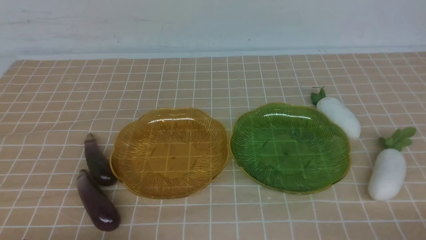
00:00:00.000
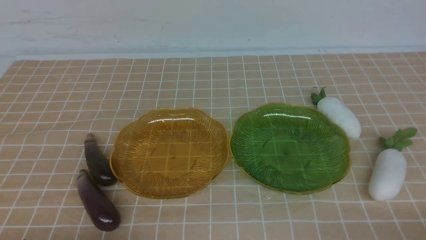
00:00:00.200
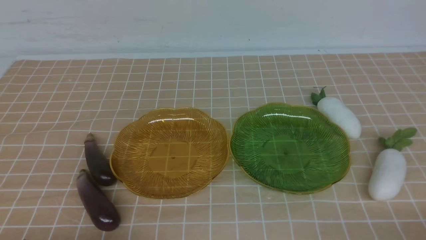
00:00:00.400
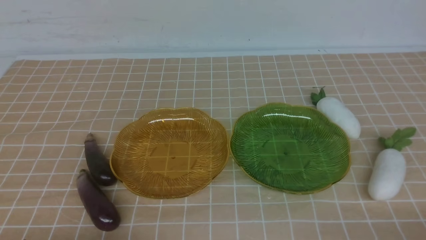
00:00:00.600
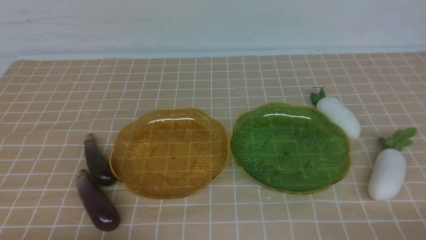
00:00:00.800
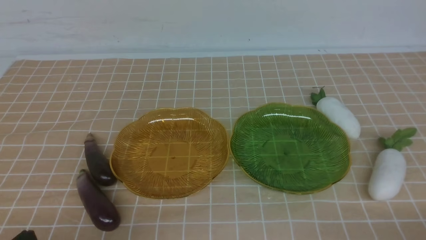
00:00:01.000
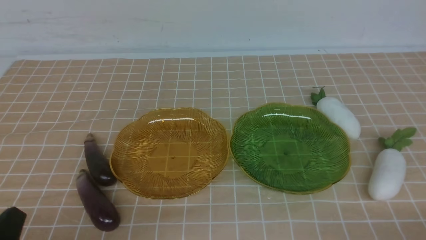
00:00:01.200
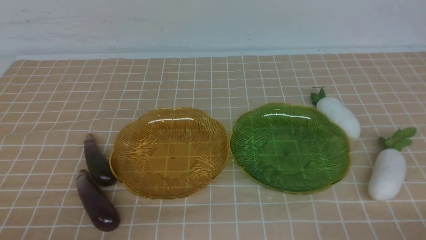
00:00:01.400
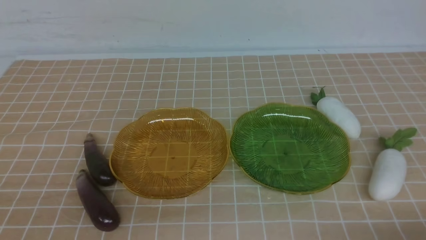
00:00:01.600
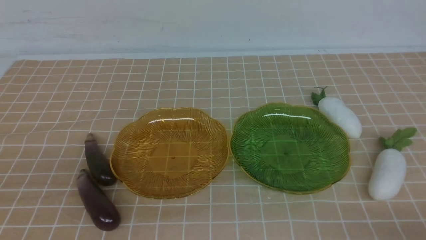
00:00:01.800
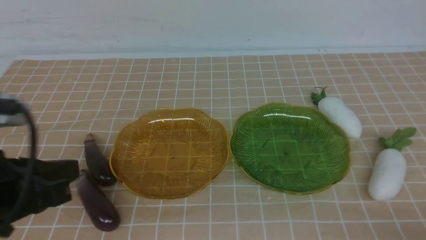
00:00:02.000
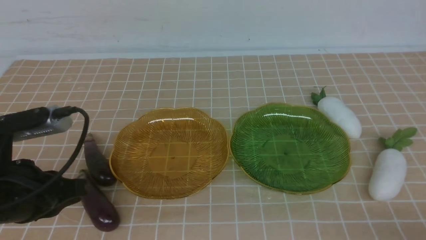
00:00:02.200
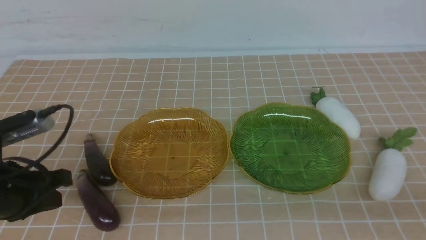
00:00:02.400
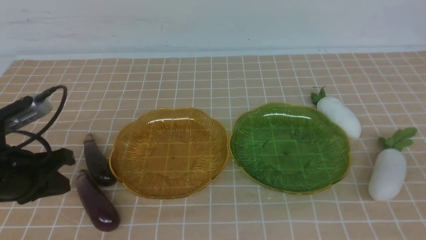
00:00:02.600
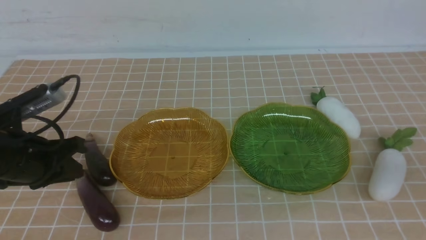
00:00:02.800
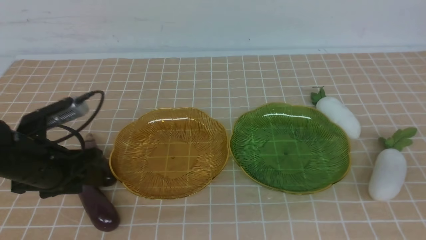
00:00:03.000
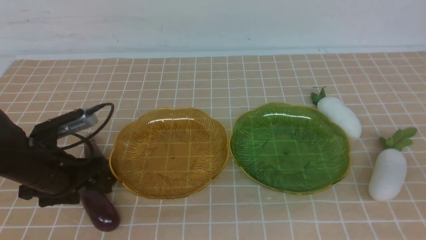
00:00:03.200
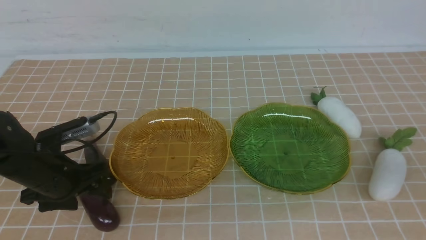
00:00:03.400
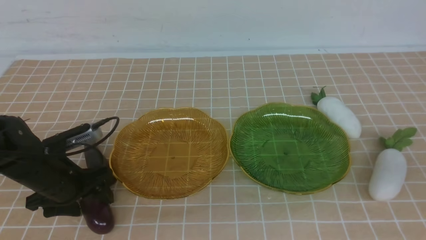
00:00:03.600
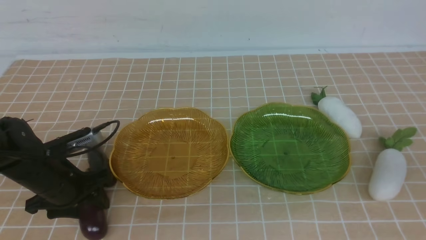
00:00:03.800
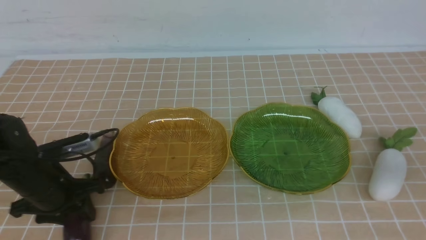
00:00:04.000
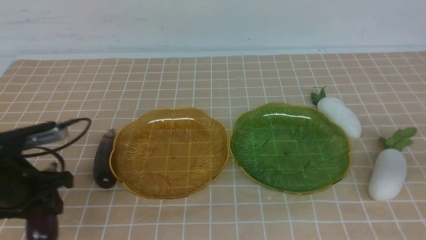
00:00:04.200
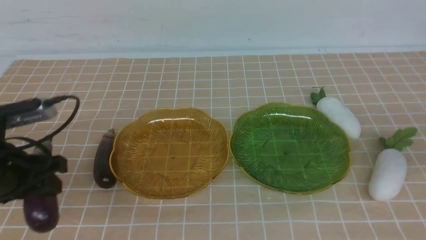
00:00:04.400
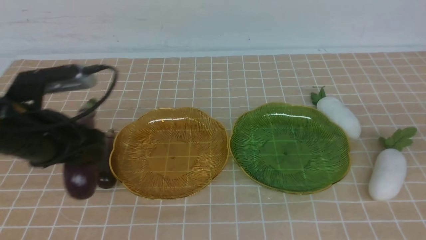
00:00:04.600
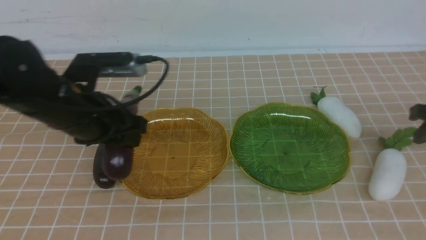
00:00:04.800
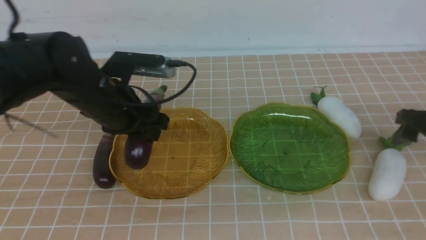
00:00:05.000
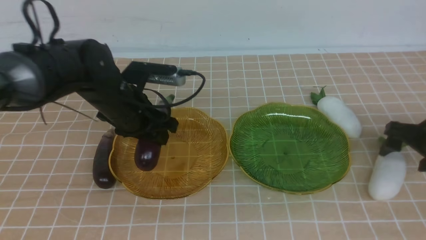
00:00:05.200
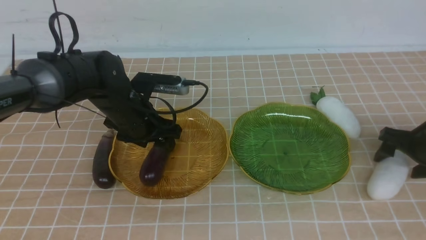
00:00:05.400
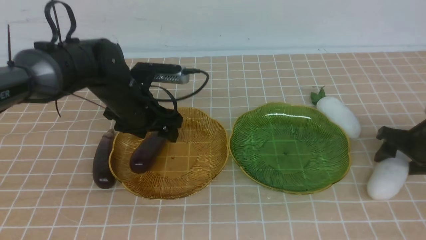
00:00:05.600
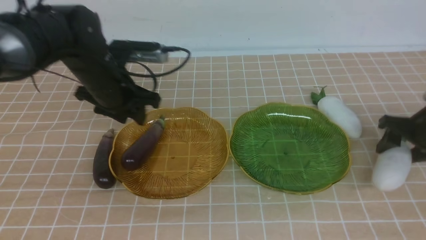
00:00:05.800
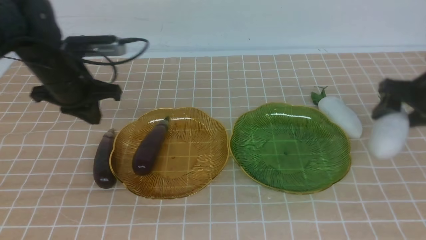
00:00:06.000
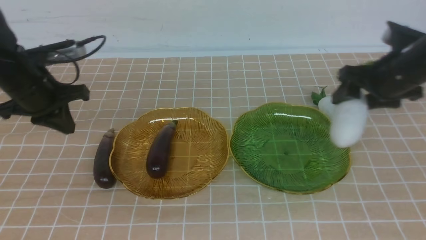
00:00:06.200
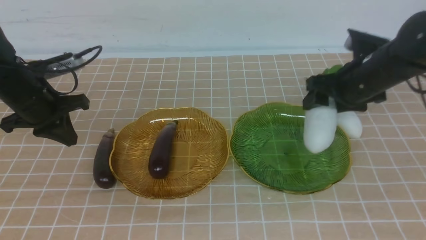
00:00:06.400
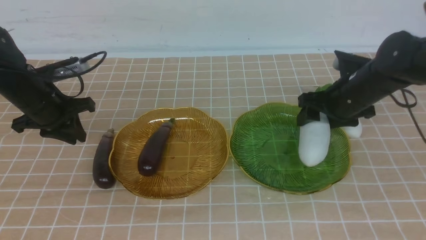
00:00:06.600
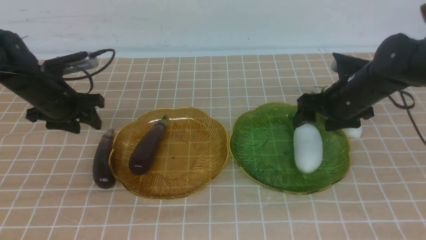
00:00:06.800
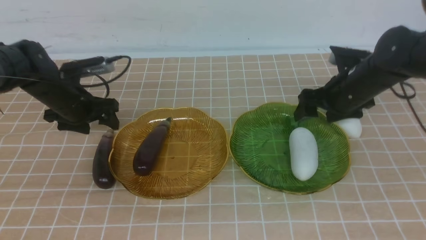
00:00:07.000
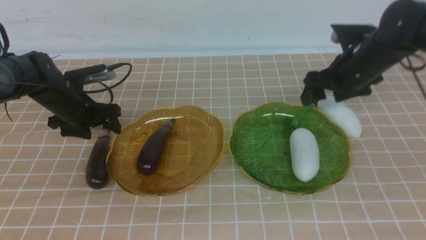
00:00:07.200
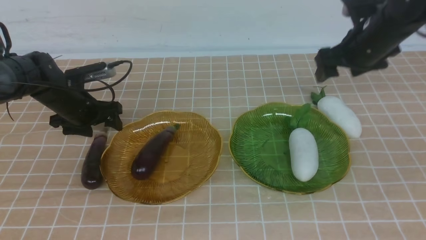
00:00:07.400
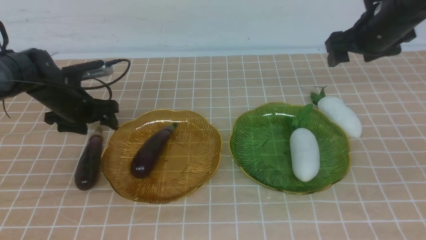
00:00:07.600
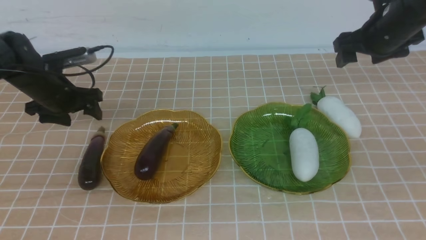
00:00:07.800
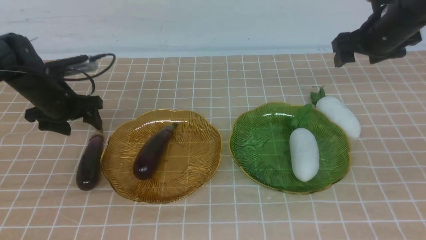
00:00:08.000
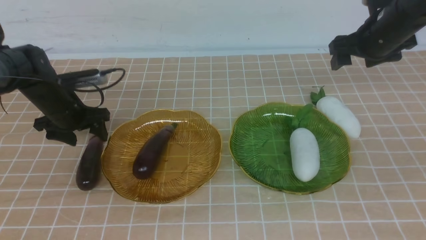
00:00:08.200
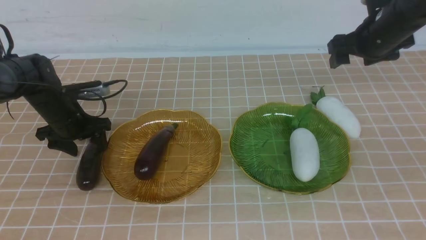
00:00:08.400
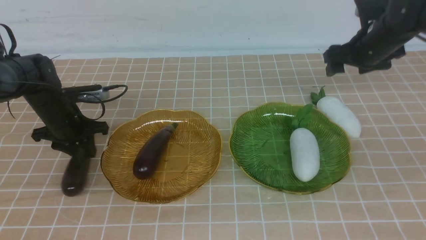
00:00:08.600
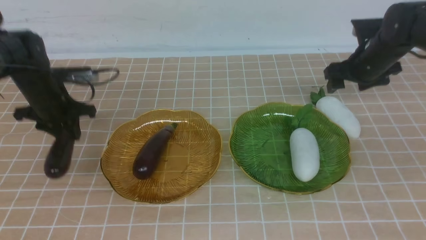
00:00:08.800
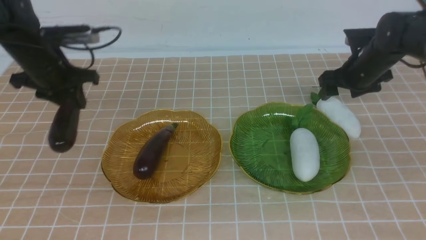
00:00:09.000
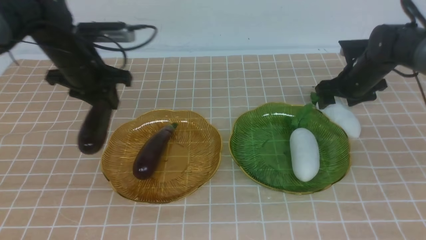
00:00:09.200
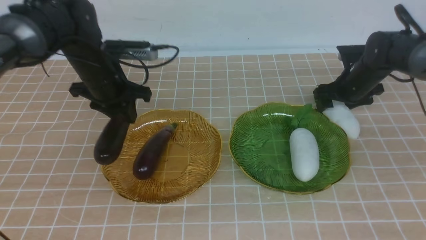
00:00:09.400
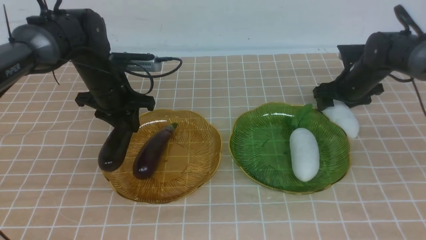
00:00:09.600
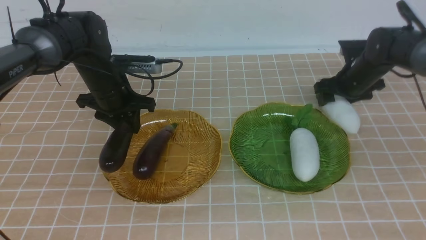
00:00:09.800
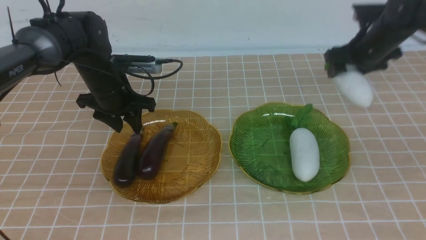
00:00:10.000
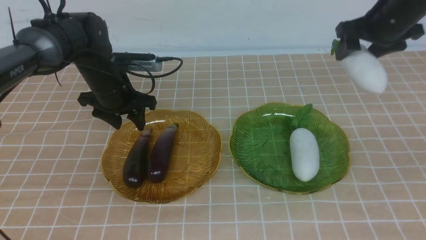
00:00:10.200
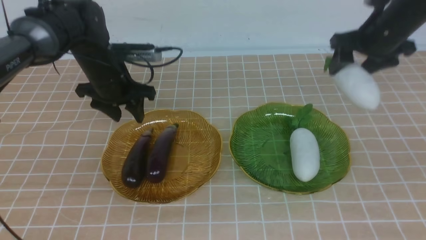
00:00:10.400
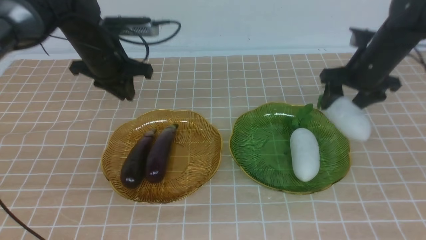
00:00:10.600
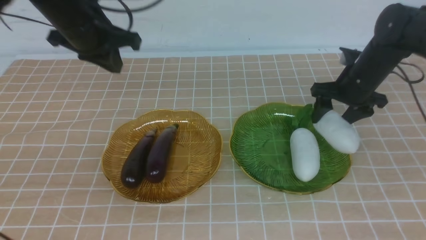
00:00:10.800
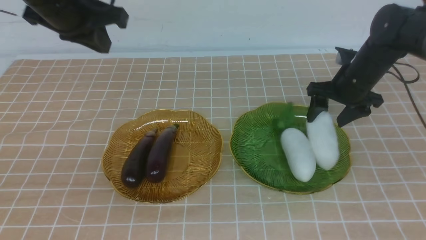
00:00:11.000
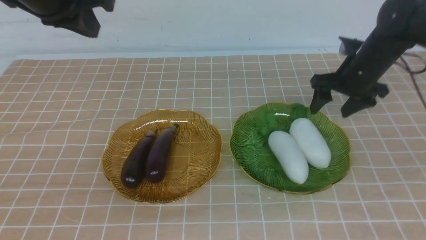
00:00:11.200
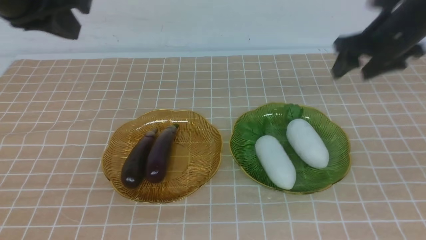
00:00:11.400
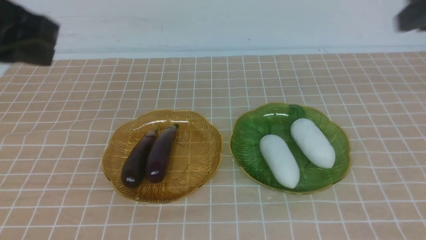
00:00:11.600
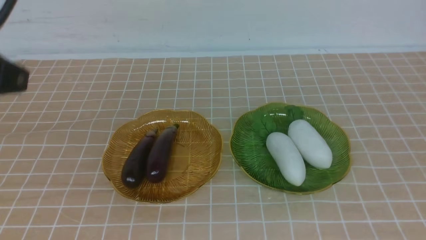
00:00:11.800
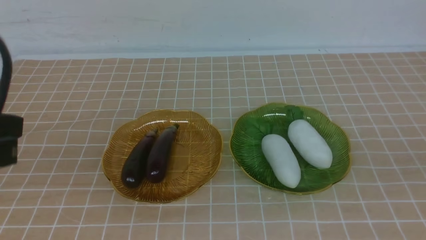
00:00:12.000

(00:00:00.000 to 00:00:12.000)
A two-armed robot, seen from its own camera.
Step, 00:00:00.000 - 00:00:05.600: use the left arm to grab an eggplant and put it into the left plate.
Step, 00:00:06.000 - 00:00:07.000: use the right arm to grab a radish and put it into the right plate.
Step, 00:00:07.200 - 00:00:10.000: use the left arm to grab an eggplant and put it into the left plate.
Step, 00:00:10.200 - 00:00:11.200: use the right arm to grab a radish and put it into the right plate.
00:00:01.600 - 00:00:03.000: The left gripper shifts roughly 25 cm forward and downward, and opens up. The right gripper is displaced upward by some 15 cm.
00:00:03.000 - 00:00:04.400: The left gripper heads to the right and upward, covering approximately 15 cm, and closes.
00:00:04.400 - 00:00:06.000: The right gripper shifts about 15 cm to the left and forward; the left gripper moves to the left, forward and downward, about 15 cm, and closes, then opens again.
00:00:06.000 - 00:00:07.600: The right gripper heads upward, covering about 10 cm.
00:00:07.600 - 00:00:09.000: The left gripper heads to the right and upward, covering roughly 10 cm, and closes up, while the right gripper is displaced downward by approximately 10 cm.
00:00:09.000 - 00:00:10.400: The right gripper goes roughly 5 cm upward; the left gripper is displaced upward by some 10 cm.
00:00:10.400 - 00:00:12.000: The left gripper goes roughly 30 cm backward. Meanwhile the right gripper travels backward by approximately 40 cm, and closes.

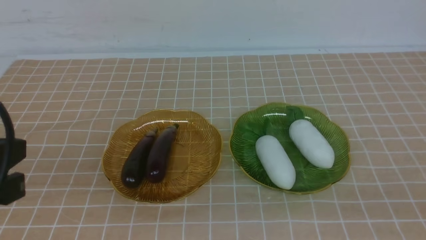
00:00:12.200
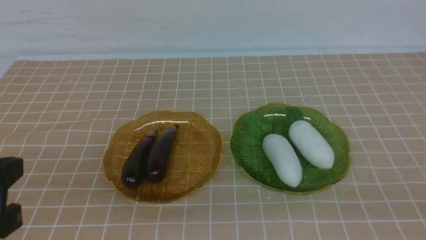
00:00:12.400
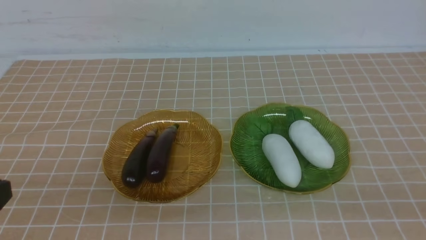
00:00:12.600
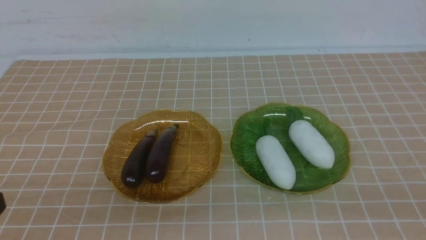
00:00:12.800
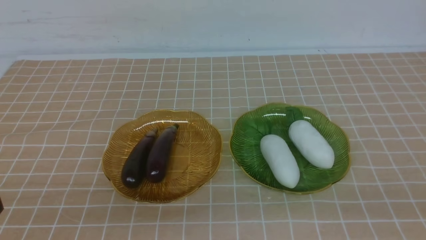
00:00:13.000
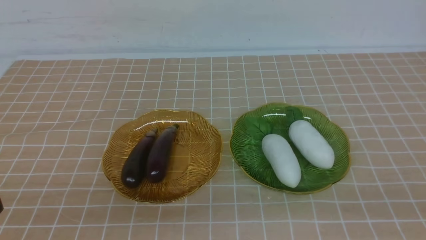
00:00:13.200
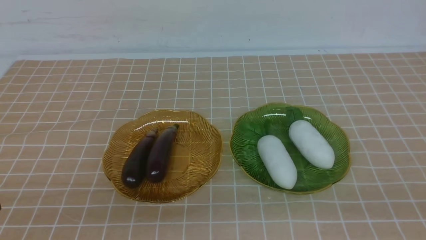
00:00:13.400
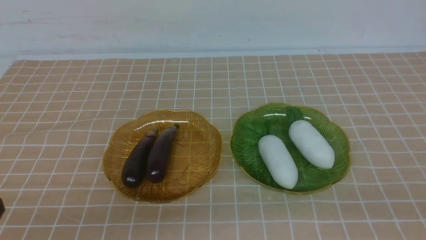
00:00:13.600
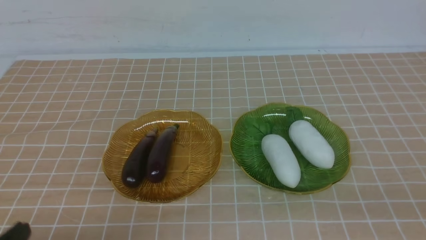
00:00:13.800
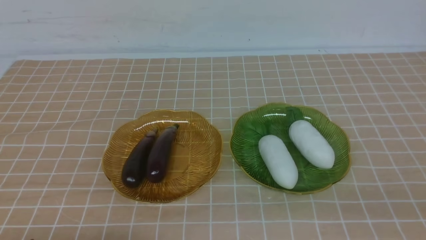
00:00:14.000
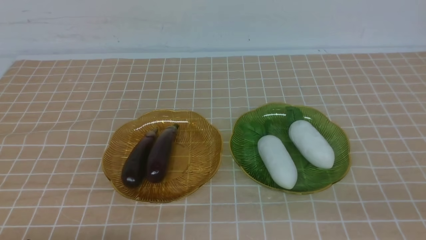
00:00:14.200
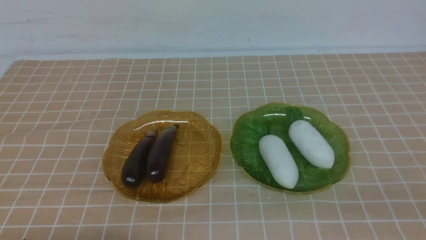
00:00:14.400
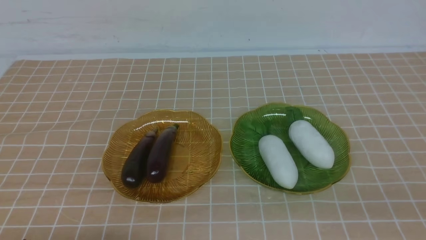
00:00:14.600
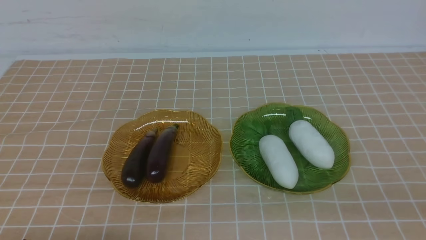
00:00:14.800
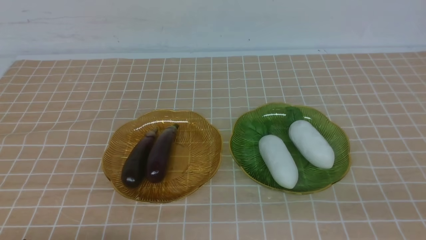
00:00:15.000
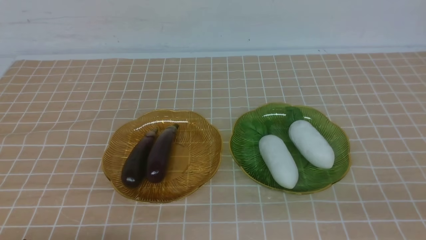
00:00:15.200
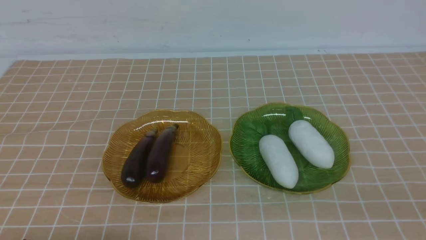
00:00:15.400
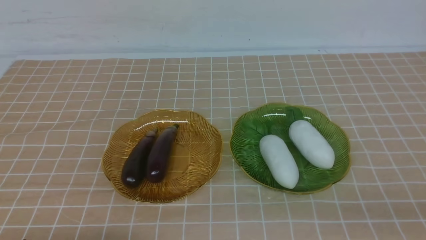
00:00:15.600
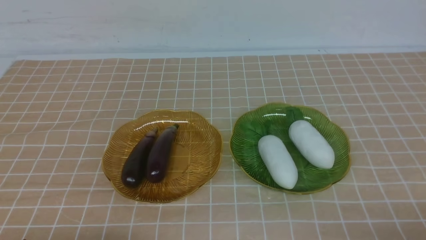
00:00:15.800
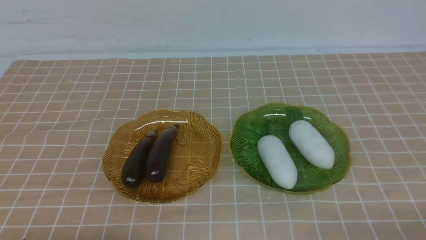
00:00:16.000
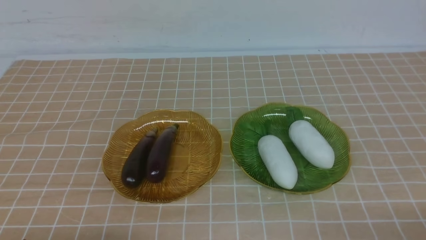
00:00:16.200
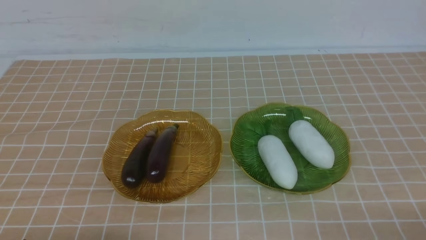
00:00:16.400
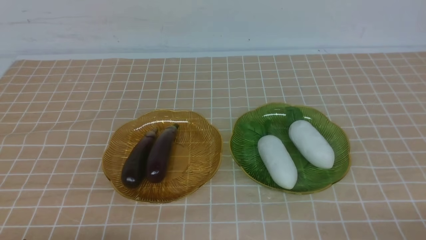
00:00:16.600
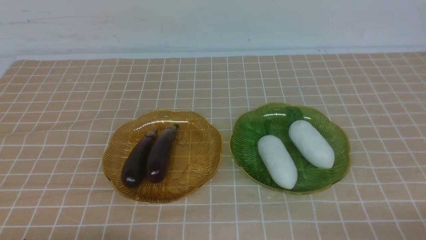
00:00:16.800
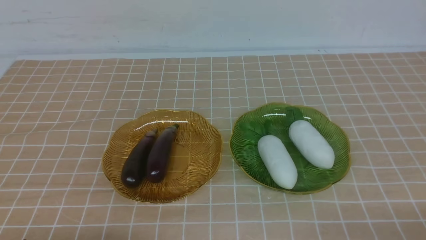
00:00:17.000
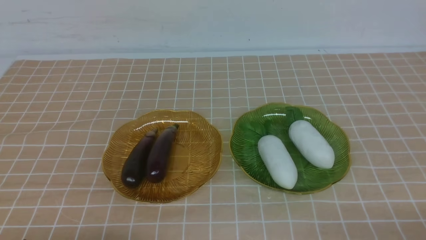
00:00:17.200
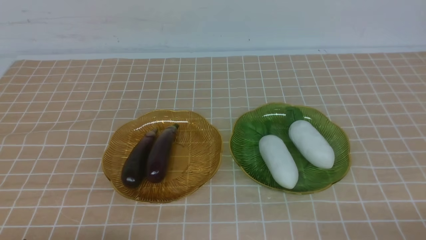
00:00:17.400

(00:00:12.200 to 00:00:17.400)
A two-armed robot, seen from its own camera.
00:00:12.200 - 00:00:14.000: The left gripper moves downward, approximately 15 cm.
00:00:15.600 - 00:00:17.400: Both grippers stay put.
